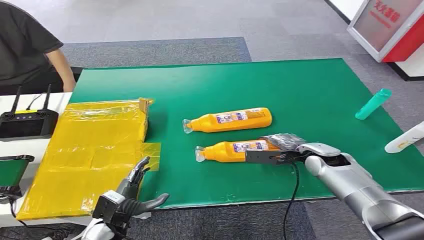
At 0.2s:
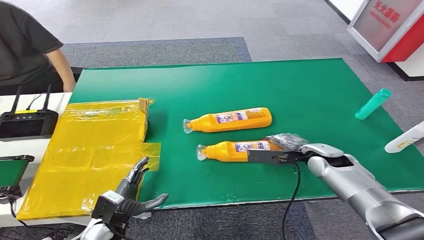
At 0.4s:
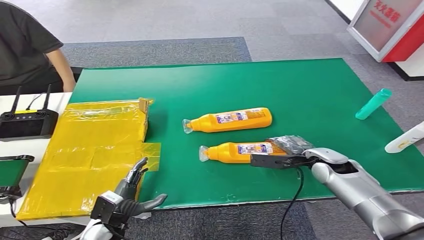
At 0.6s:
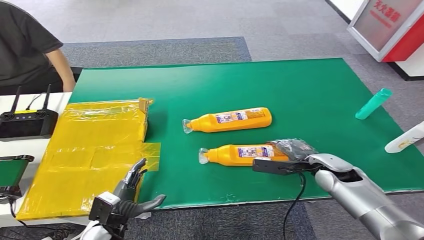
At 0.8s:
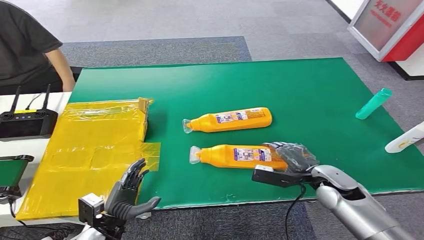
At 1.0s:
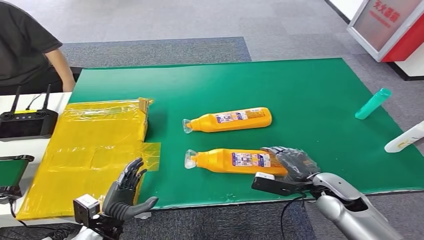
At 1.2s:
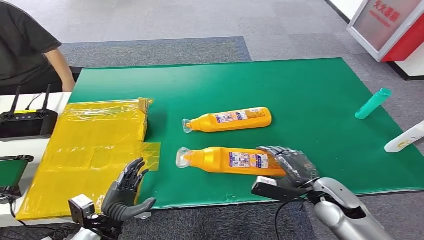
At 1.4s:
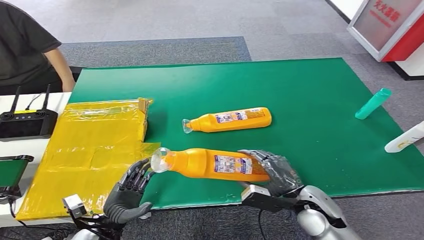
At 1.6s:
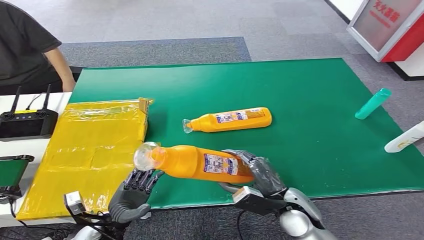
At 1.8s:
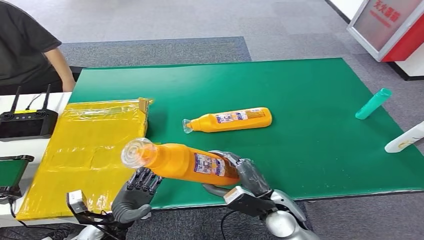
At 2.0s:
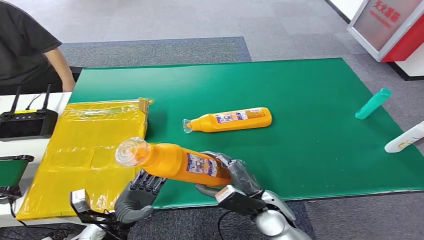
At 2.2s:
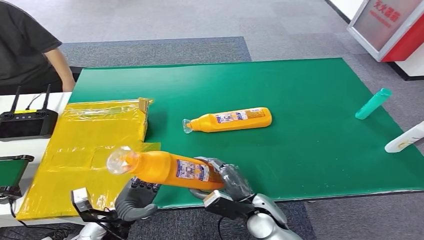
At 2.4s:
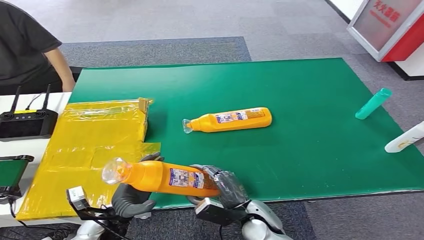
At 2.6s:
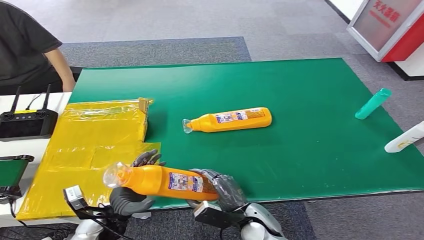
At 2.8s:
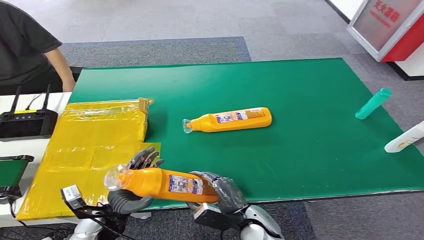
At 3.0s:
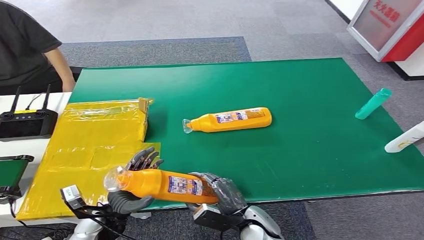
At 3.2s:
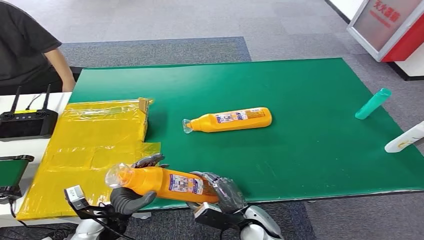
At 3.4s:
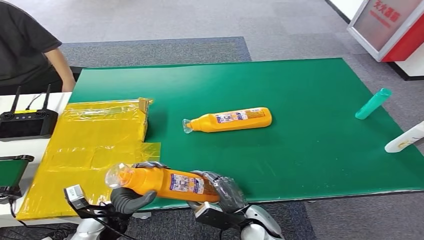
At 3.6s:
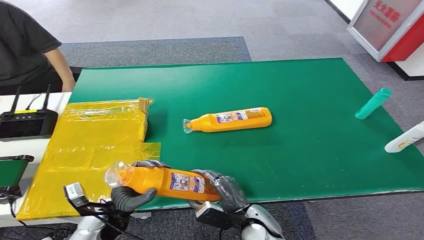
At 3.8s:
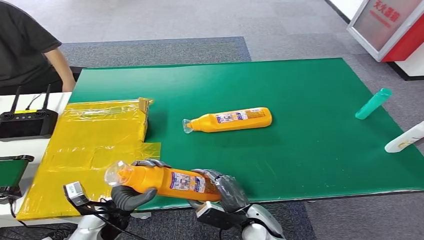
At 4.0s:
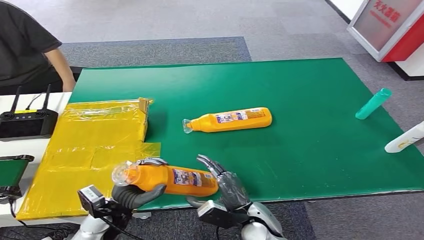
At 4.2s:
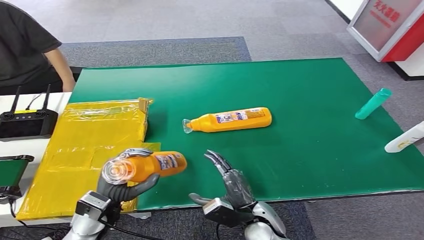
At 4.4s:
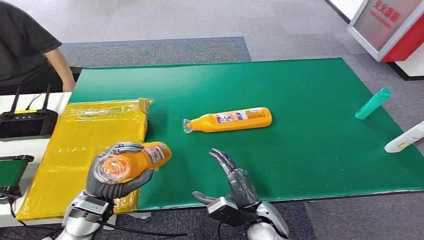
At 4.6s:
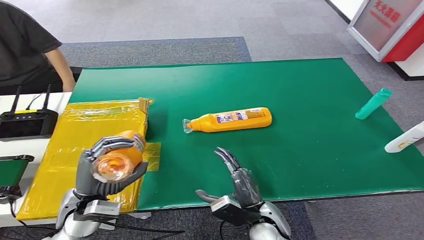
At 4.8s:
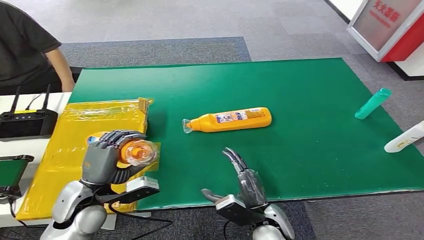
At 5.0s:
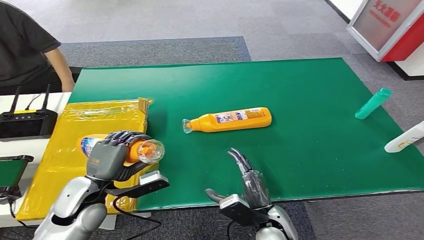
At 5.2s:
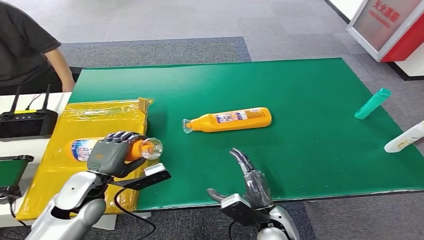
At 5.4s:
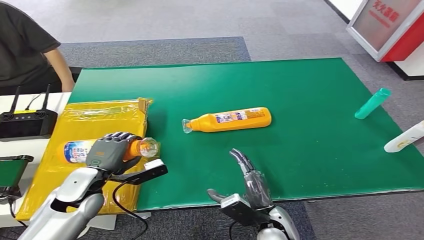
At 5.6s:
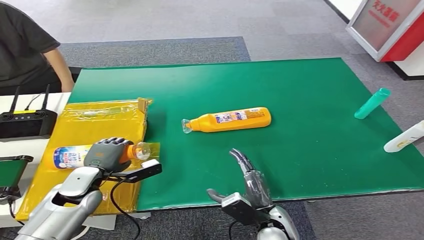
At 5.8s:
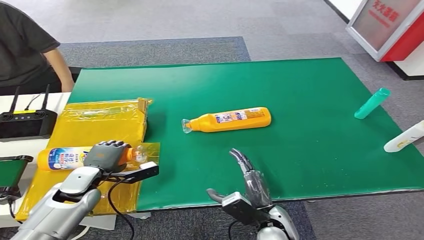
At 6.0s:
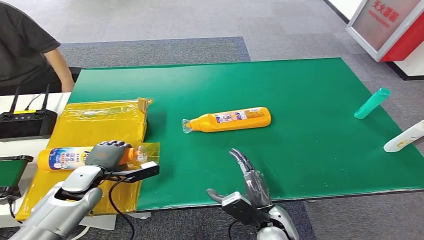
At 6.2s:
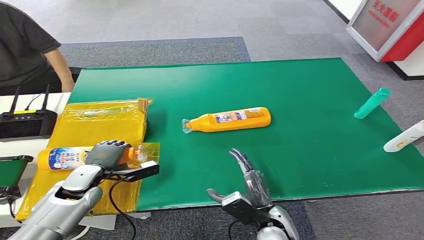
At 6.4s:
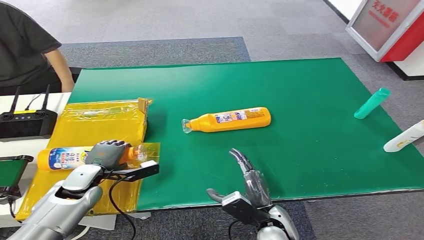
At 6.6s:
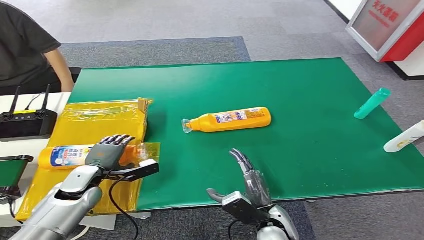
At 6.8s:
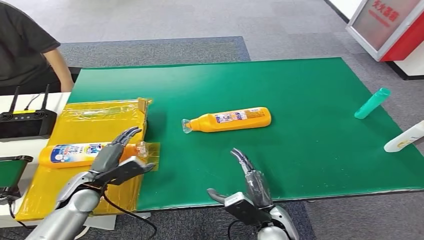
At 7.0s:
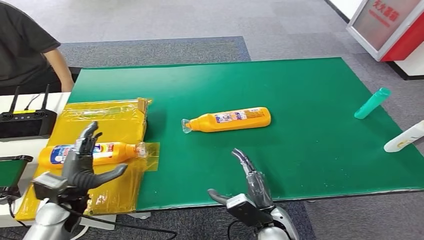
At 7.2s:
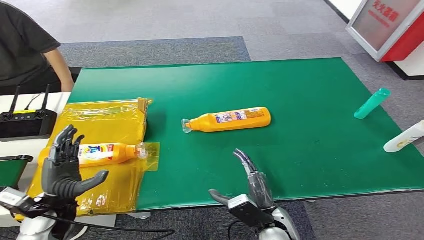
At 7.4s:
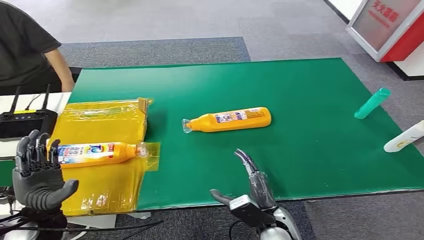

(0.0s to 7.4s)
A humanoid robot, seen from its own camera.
Step, 0.0s - 2.0s: Pick up the bottle from the table.
Step, 4.2s - 7.2s: Turn the bottle to the front side.
1.4s - 3.0s: The right hand shifts some 15 cm to the left and downward.
3.0s - 4.4s: The left hand goes roughly 5 cm upward.
4.4s - 6.0s: The left hand moves forward and to the left, approximately 10 cm.
6.0s - 7.4s: The left hand moves backward, roughly 10 cm.
